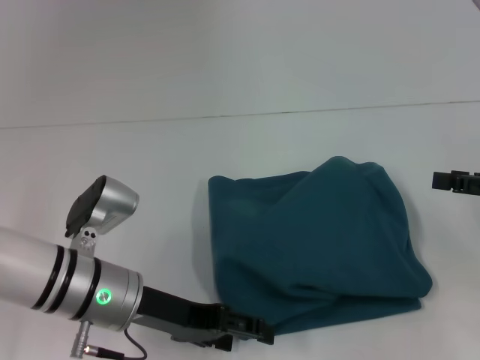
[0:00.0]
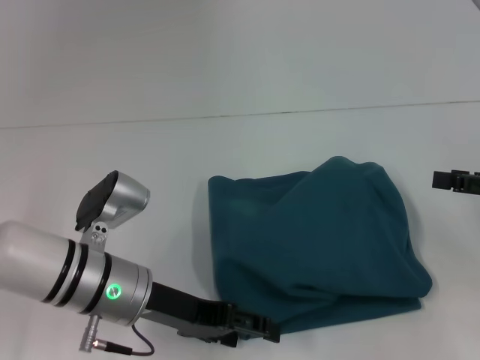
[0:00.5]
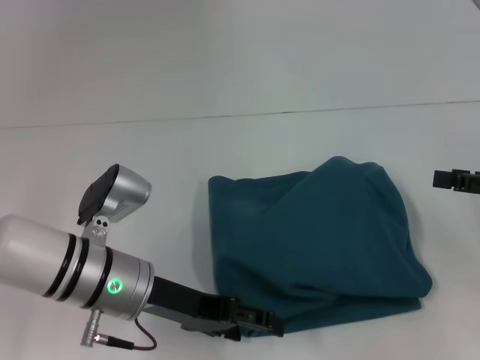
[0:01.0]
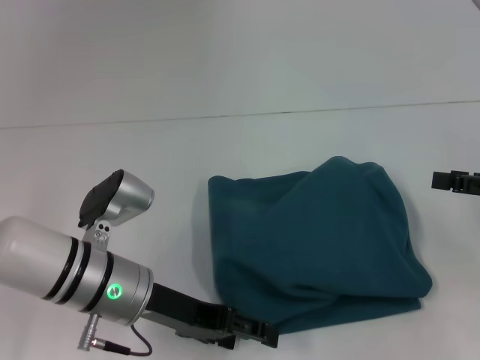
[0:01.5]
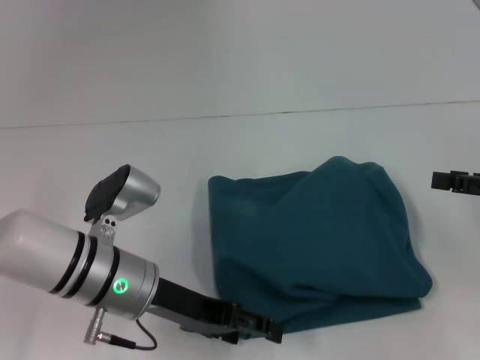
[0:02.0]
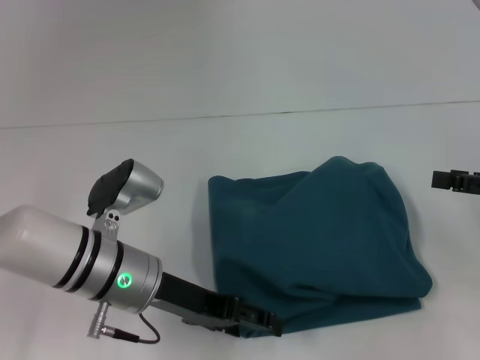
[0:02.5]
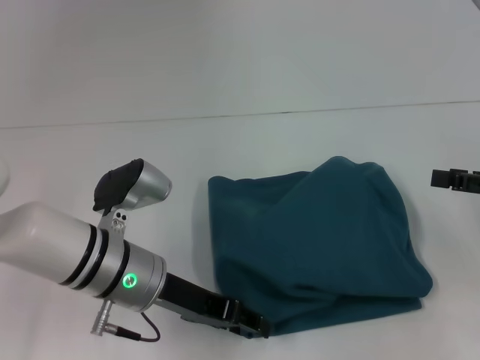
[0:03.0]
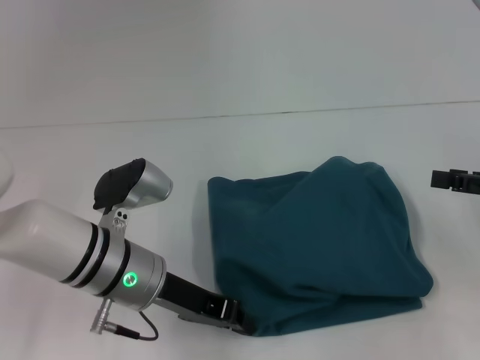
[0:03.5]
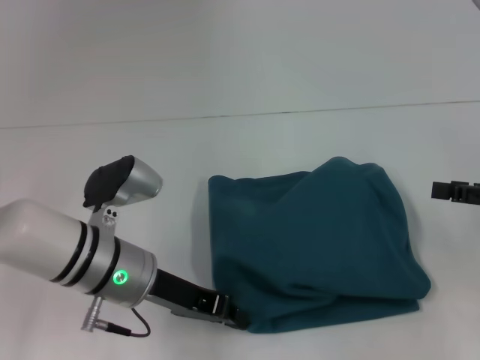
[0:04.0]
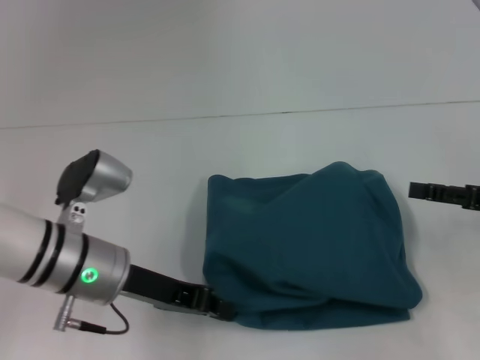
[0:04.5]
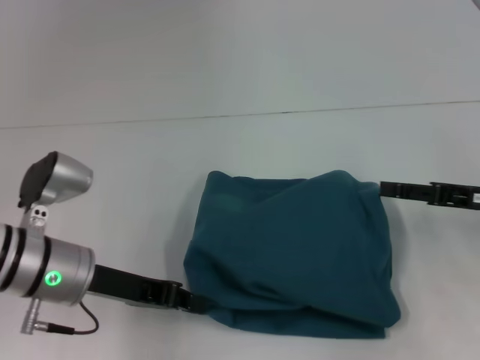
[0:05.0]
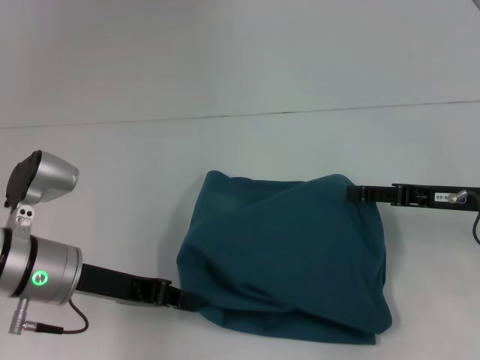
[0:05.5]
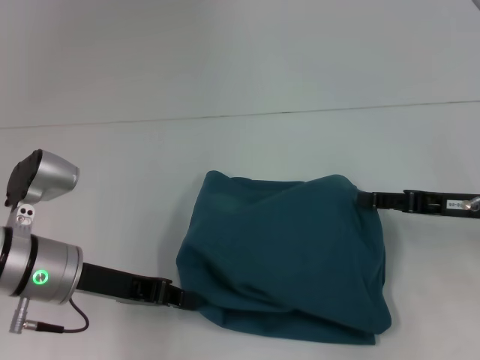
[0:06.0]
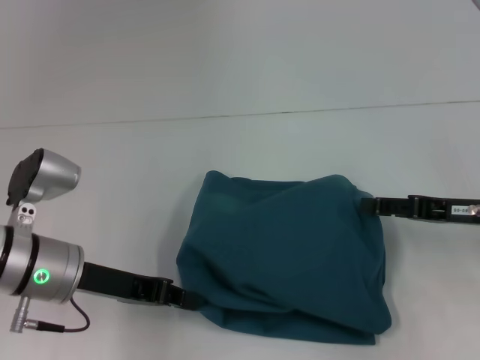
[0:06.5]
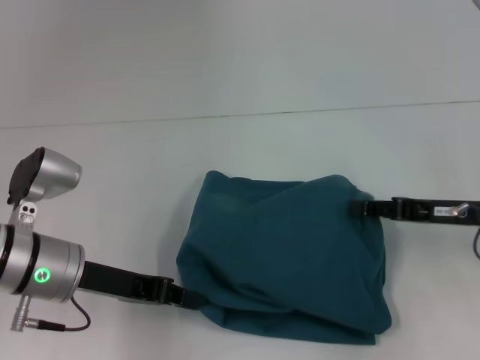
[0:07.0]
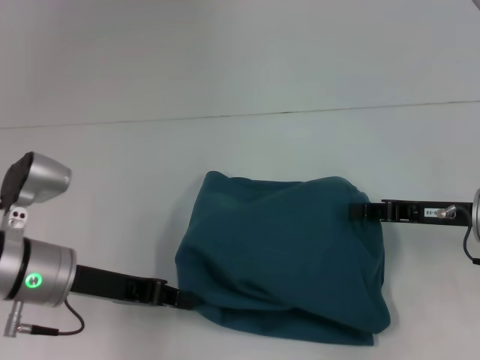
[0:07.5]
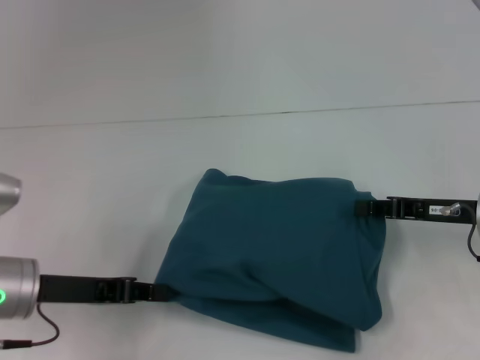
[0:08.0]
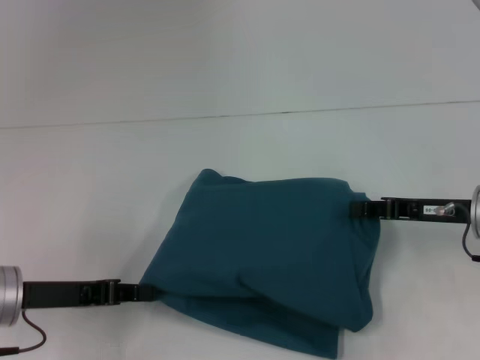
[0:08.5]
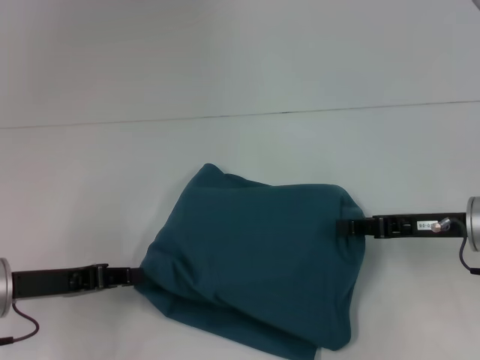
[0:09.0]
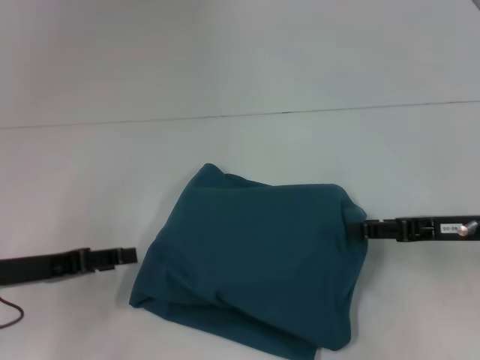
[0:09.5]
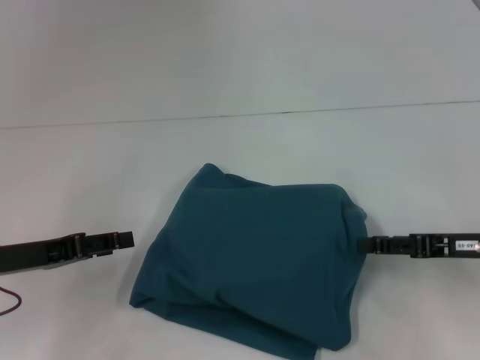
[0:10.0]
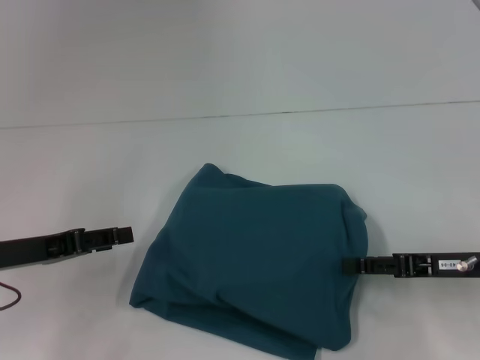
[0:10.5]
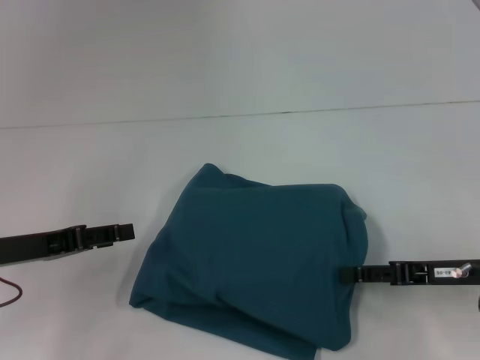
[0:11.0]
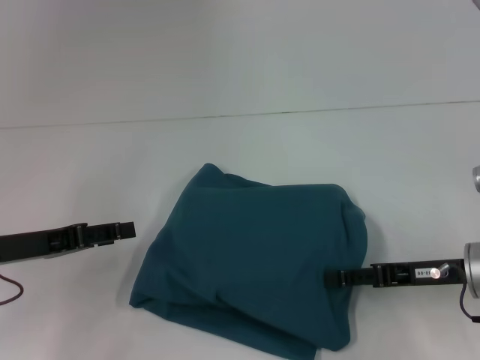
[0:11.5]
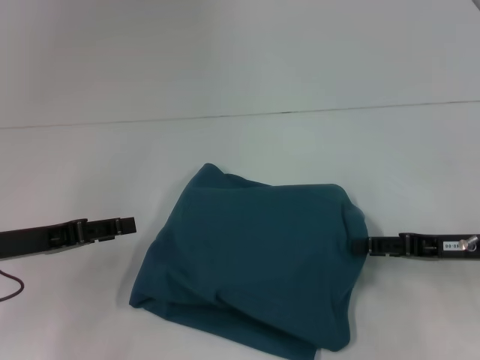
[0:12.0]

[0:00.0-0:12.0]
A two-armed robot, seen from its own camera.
0:00.0 to 0:02.0: The grippers make only small movements.
0:02.0 to 0:04.0: The left gripper closes.
0:04.0 to 0:06.0: The two grippers go approximately 5 cm to the left.
0:06.0 to 0:08.0: The right gripper closes.
0:08.0 to 0:10.0: The left gripper opens its fingers. The right gripper opens its fingers.
0:10.0 to 0:12.0: The grippers make only small movements.

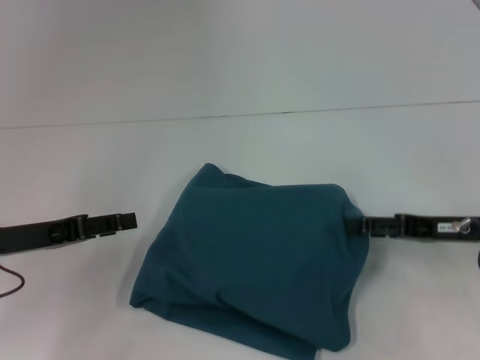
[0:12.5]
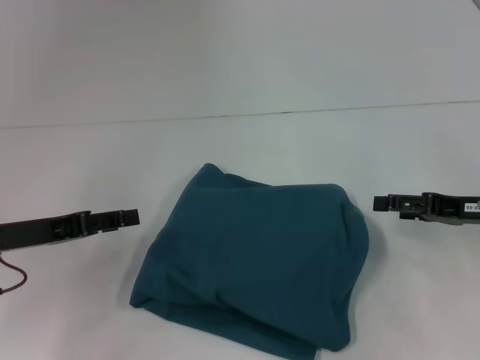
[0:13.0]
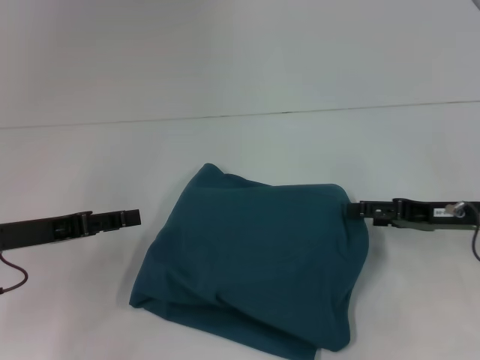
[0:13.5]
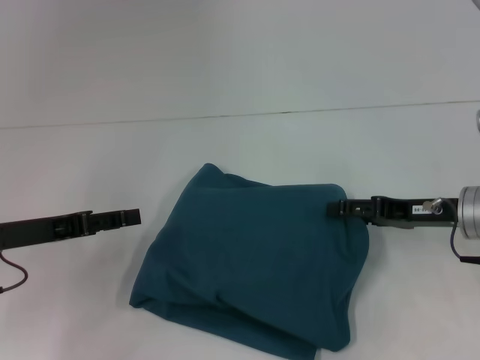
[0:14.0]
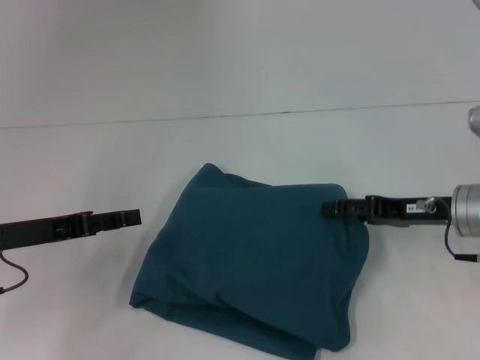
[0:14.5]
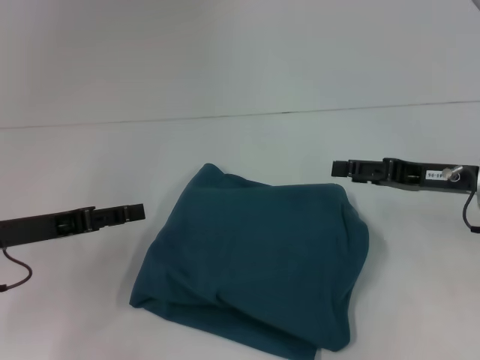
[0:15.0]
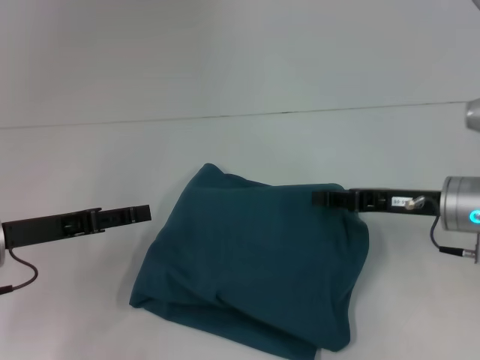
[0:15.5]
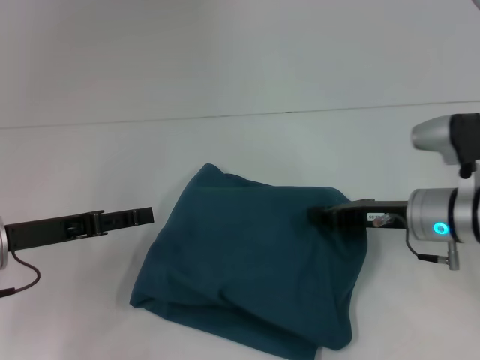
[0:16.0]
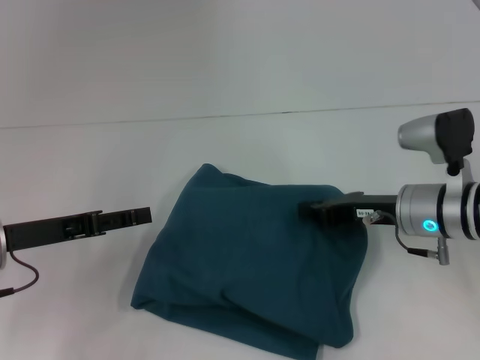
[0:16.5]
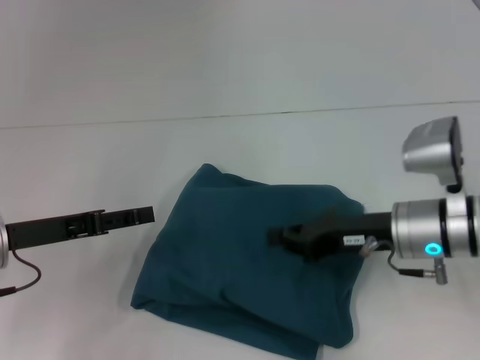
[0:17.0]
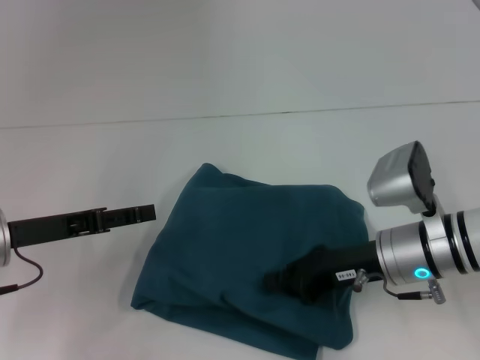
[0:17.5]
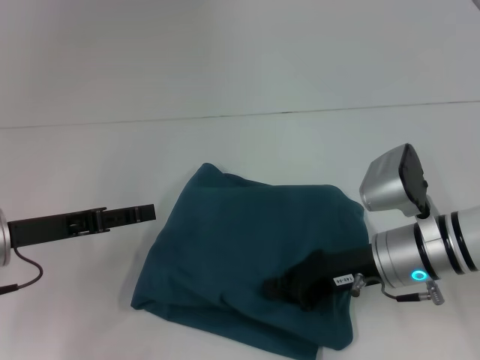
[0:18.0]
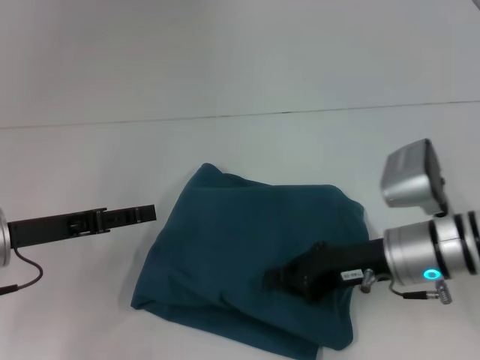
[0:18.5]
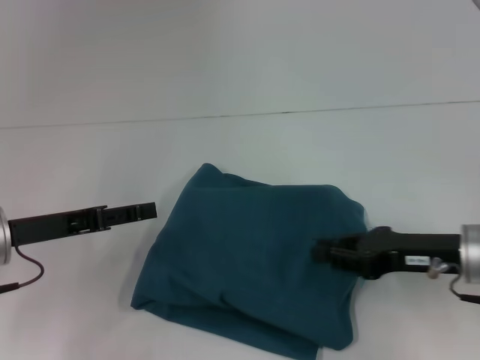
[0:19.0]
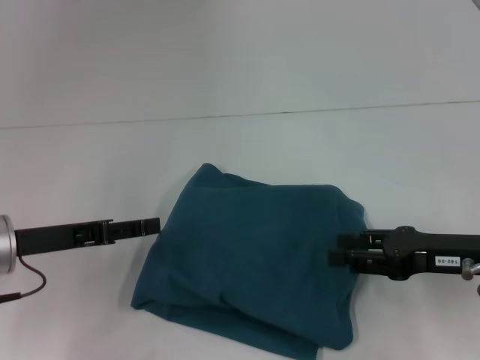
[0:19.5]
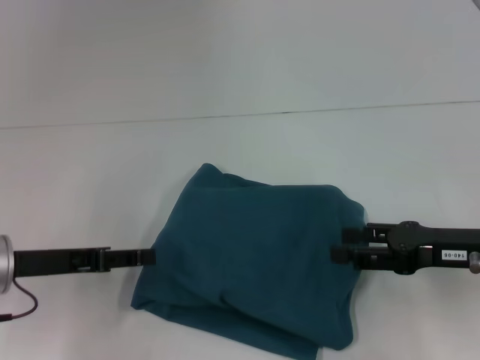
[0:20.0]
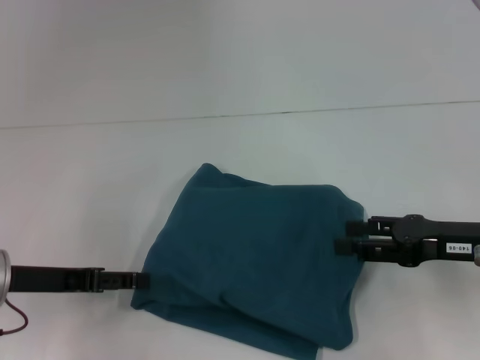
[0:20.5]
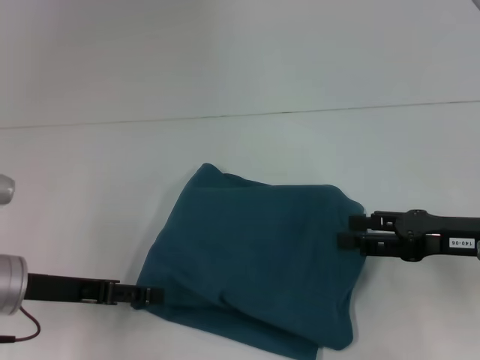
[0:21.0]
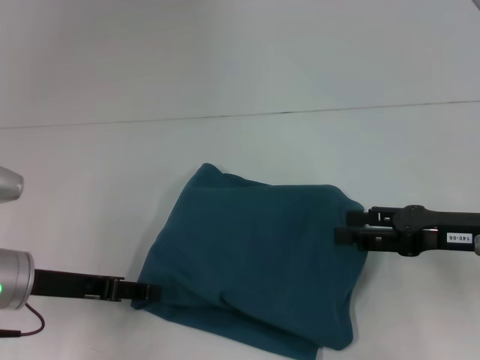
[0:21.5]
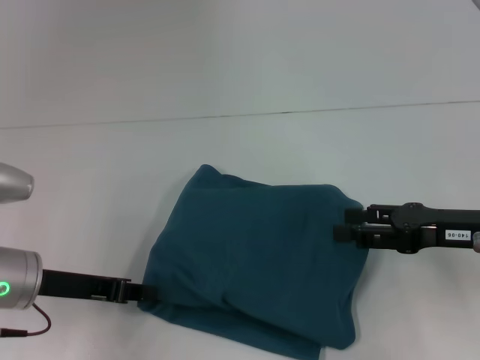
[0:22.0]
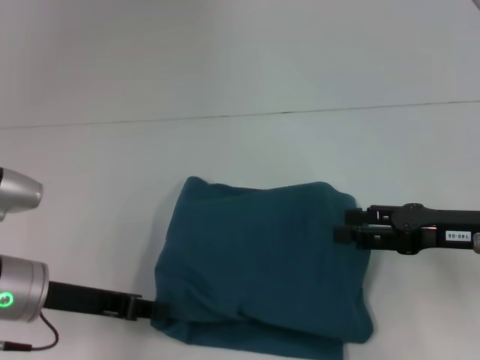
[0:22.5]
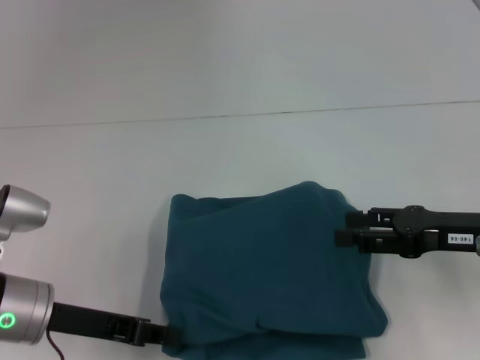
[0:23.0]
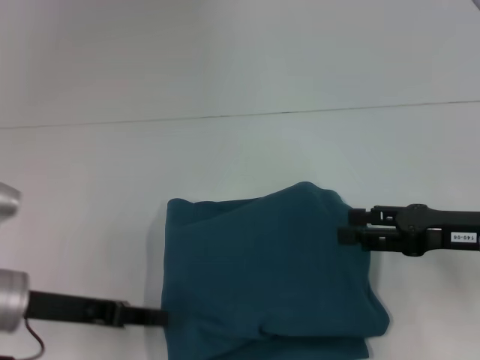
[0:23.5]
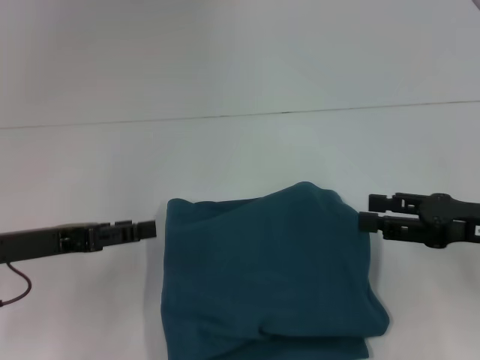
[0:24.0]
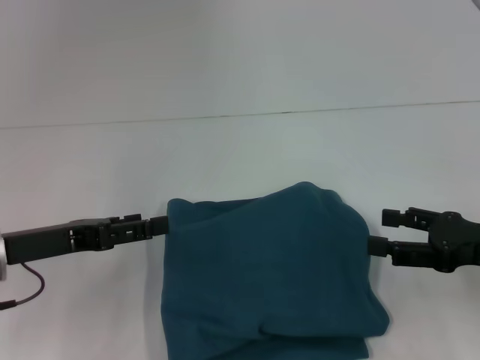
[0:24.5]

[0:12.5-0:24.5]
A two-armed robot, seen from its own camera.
0:12.5 to 0:14.5: There are only small adjustments of the grippers.
0:14.5 to 0:16.5: The right gripper moves to the left, some 5 cm, and closes its fingers.
0:18.5 to 0:20.5: The right gripper is displaced to the right by roughly 10 cm, and opens.
0:20.5 to 0:22.5: The left gripper closes its fingers.
0:22.5 to 0:24.5: The left gripper opens its fingers.

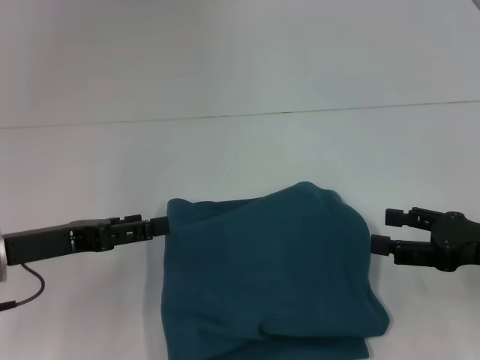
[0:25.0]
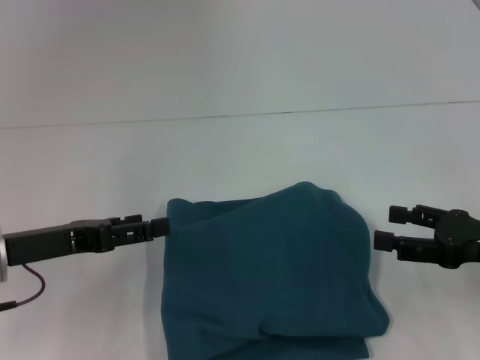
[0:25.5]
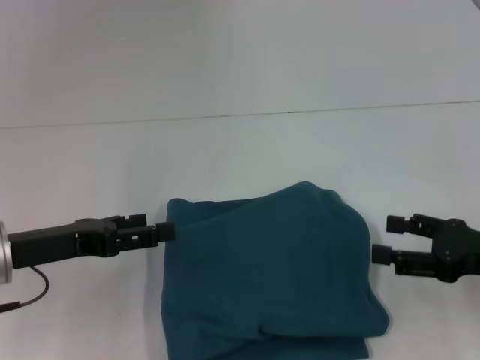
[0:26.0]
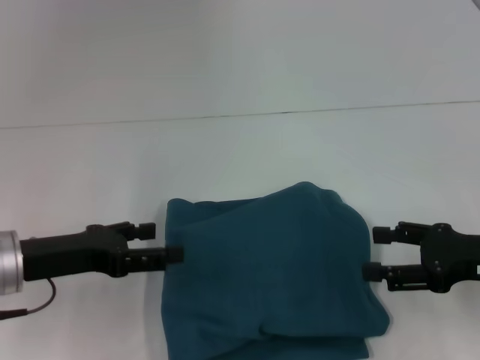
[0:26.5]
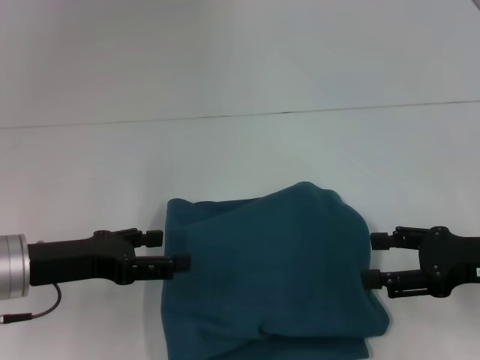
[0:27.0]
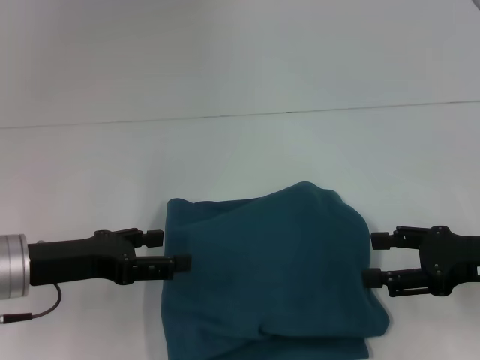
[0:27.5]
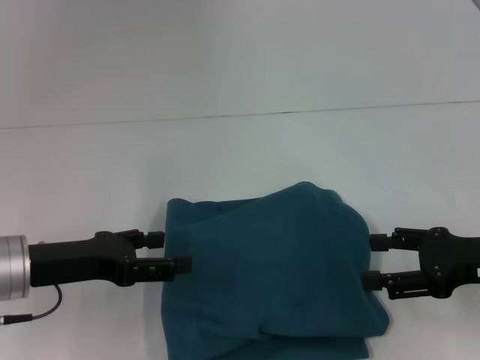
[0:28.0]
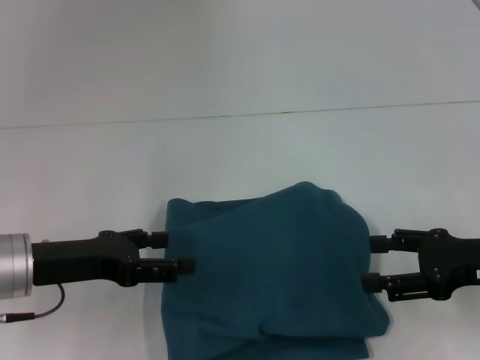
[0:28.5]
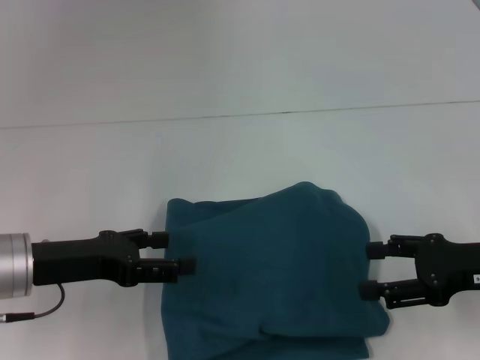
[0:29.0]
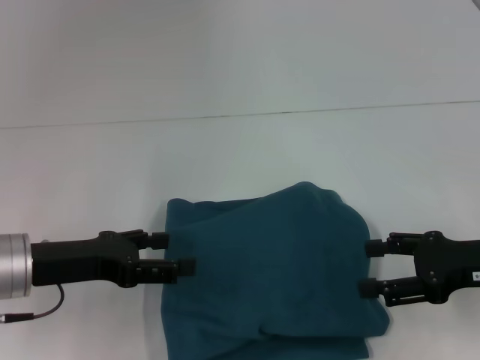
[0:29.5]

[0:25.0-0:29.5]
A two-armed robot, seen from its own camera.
0:25.0 to 0:27.0: The grippers make only small movements.
0:27.0 to 0:29.5: Both grippers stay about where they are.
